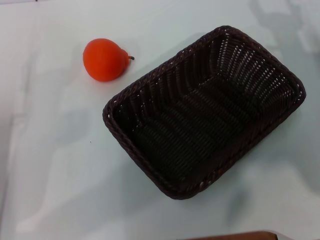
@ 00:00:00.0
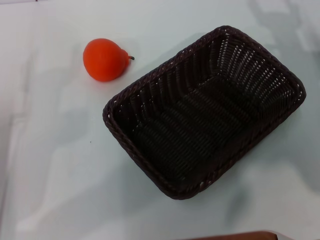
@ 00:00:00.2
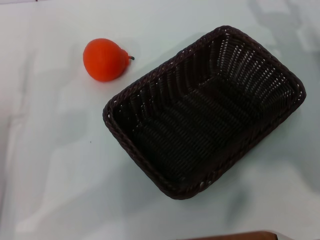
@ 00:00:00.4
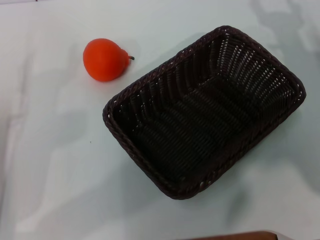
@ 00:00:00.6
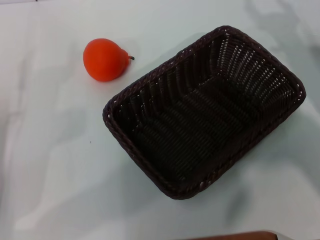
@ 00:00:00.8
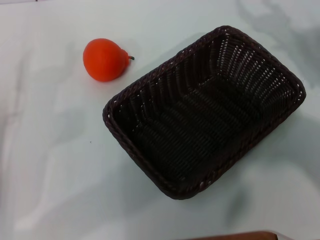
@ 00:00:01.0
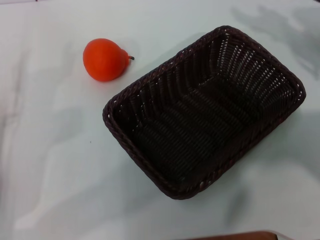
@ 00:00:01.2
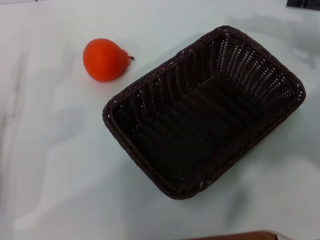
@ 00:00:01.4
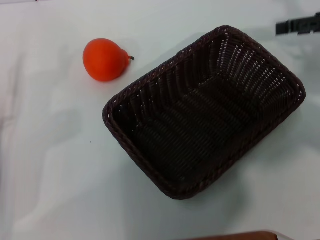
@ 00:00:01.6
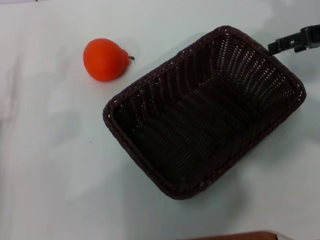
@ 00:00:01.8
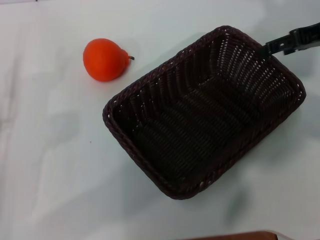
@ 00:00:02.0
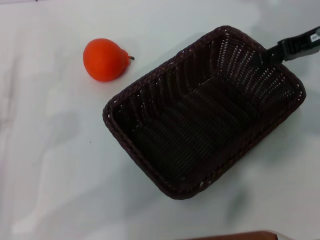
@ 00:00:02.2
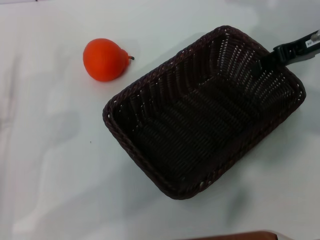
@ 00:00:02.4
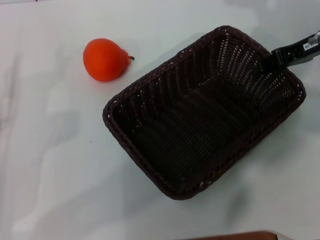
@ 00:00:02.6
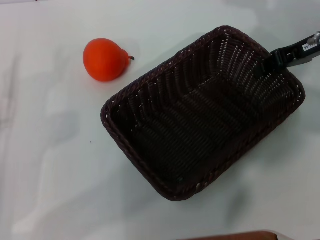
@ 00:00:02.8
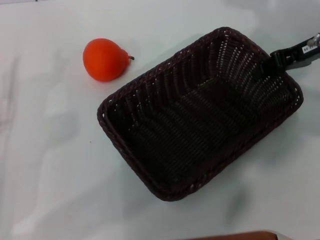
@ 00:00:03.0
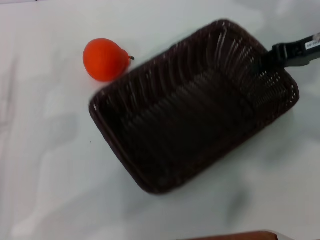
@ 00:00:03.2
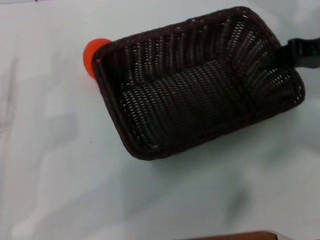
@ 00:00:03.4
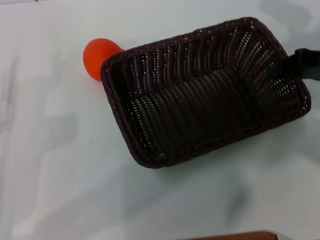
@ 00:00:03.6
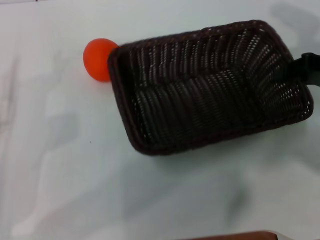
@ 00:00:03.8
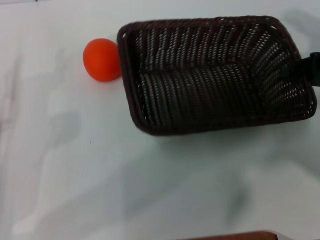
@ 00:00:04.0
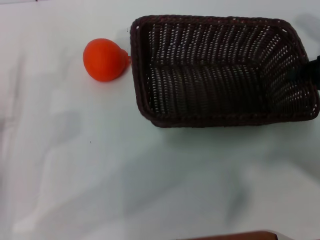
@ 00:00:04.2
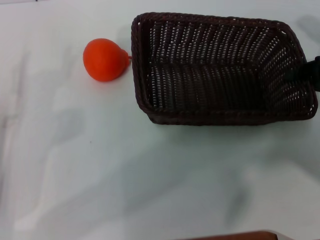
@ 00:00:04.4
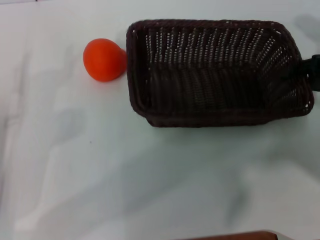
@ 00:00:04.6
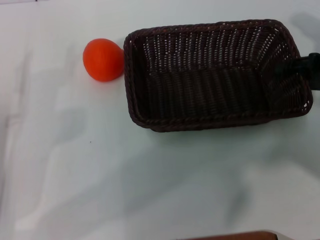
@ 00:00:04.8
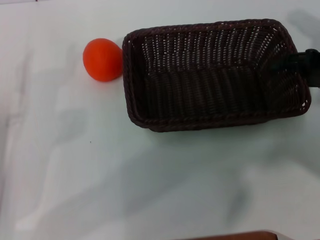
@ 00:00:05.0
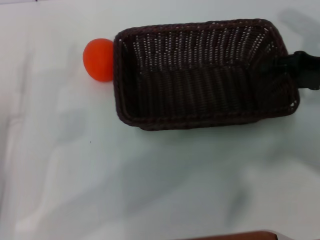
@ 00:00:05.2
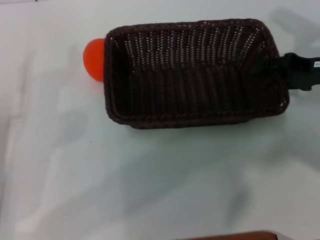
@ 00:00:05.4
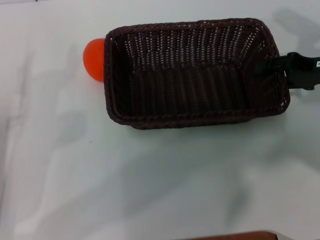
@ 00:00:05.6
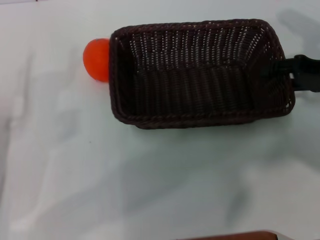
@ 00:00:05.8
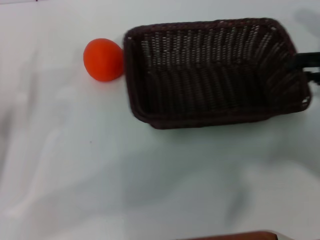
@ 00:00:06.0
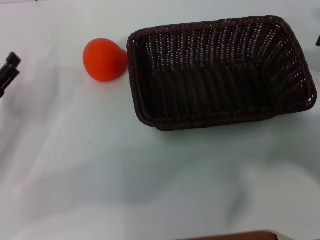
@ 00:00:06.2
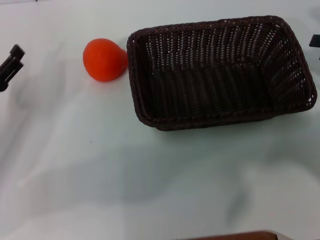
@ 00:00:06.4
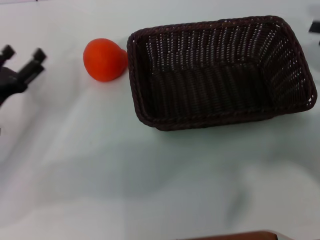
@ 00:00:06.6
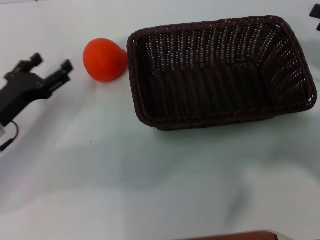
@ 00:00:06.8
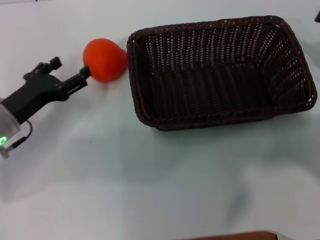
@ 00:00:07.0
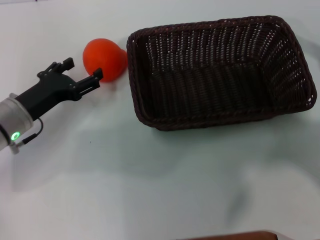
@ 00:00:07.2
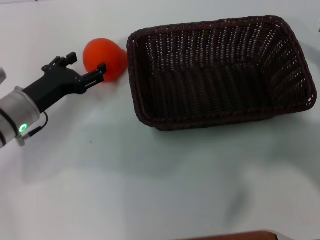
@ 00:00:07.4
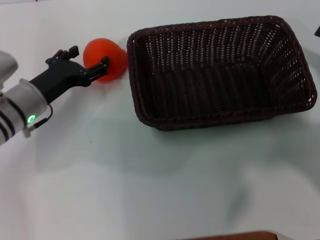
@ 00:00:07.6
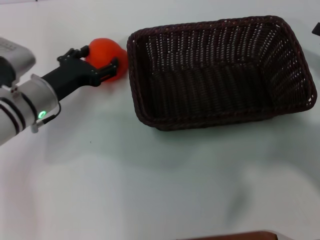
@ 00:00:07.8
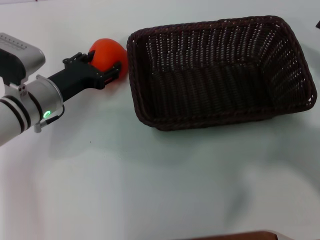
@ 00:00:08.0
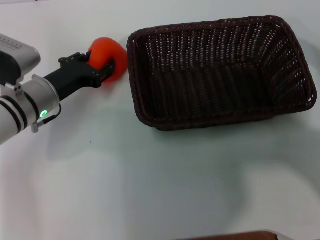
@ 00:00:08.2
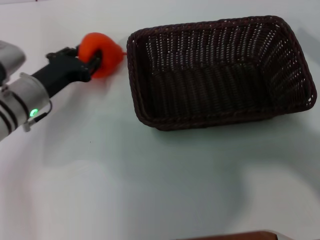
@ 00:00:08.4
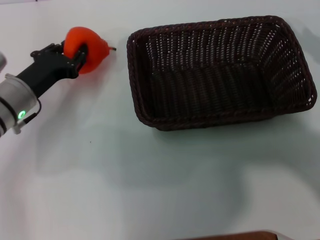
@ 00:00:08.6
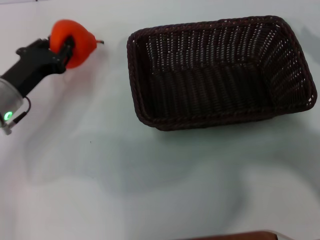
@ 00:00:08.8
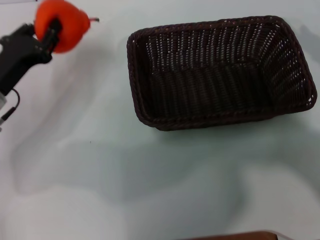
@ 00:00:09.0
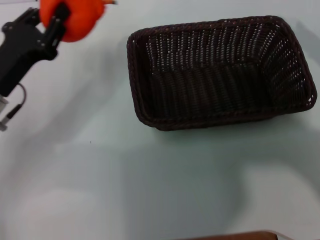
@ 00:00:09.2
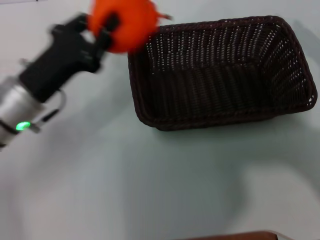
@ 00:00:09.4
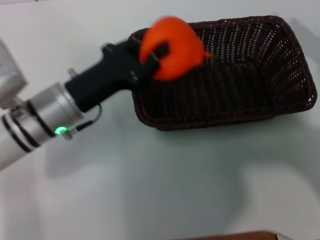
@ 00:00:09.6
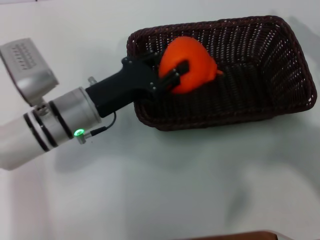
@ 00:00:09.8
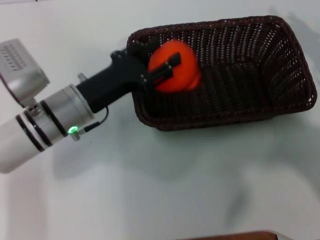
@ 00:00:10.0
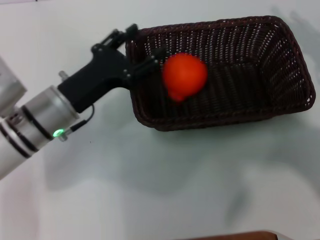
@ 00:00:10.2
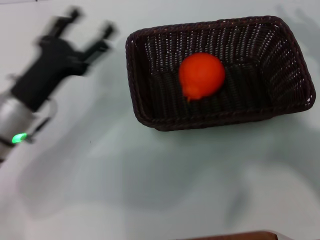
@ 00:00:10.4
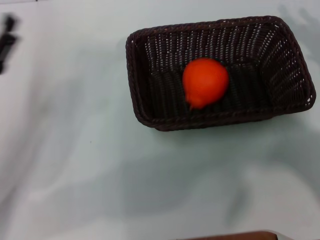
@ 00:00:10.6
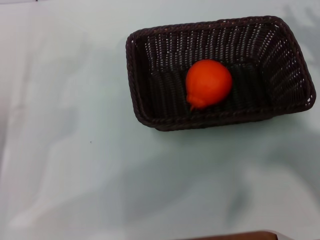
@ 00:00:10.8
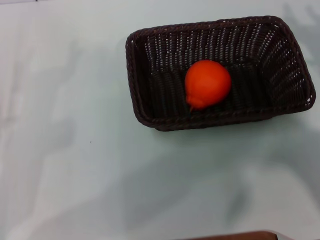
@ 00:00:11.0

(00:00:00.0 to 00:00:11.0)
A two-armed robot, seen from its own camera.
Task of the whole recording: the right gripper pick up the black basket and place it horizontally in the middle of the table, the left gripper pick up the orange and place it into the black basket.
Step, 00:00:00.0 - 00:00:03.4: Pick up the dark basket with the right gripper.
Step, 00:00:03.6 - 00:00:06.0: Place the dark basket in the center of view with the right gripper.
Step, 00:00:06.2 - 00:00:08.6: Pick up the orange with the left gripper.
Step, 00:00:08.8 - 00:00:10.0: Place the orange into the dark basket with the left gripper.
00:00:00.0 - 00:00:01.6: The right gripper moves upward, approximately 15 cm.
00:00:01.6 - 00:00:03.2: The right gripper changes place by roughly 5 cm, and closes up.
00:00:03.2 - 00:00:04.8: The right gripper travels backward by some 5 cm.
00:00:04.8 - 00:00:06.2: The right gripper moves some 5 cm, and opens.
00:00:06.2 - 00:00:07.8: The left gripper is displaced to the right and forward by approximately 15 cm; the right gripper heads downward, covering roughly 5 cm.
00:00:07.8 - 00:00:09.4: The left gripper shifts some 5 cm backward and upward, and closes.
00:00:09.4 - 00:00:11.0: The left gripper travels to the left and backward by about 15 cm, and opens.
